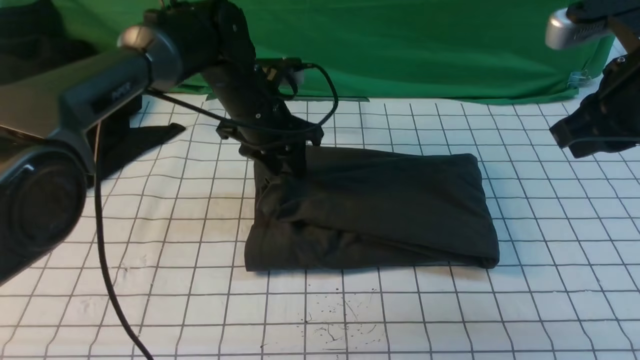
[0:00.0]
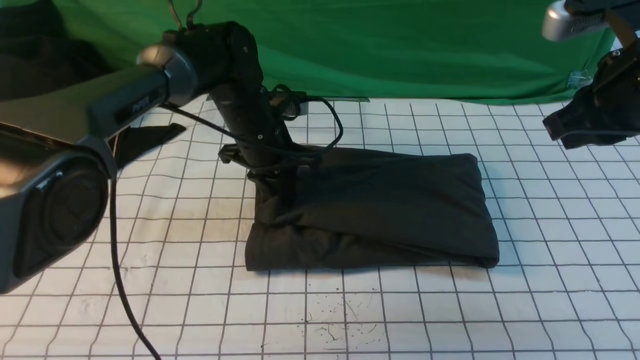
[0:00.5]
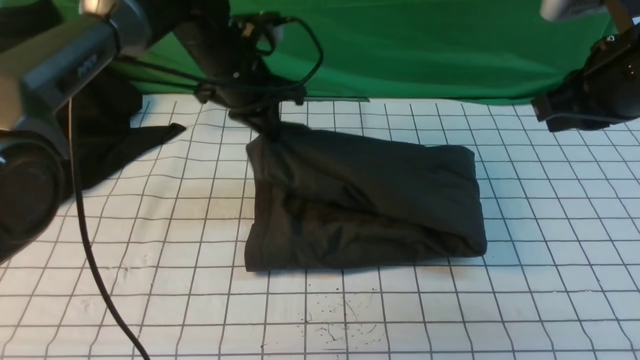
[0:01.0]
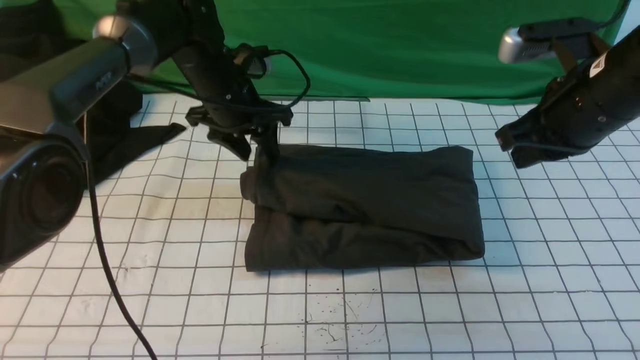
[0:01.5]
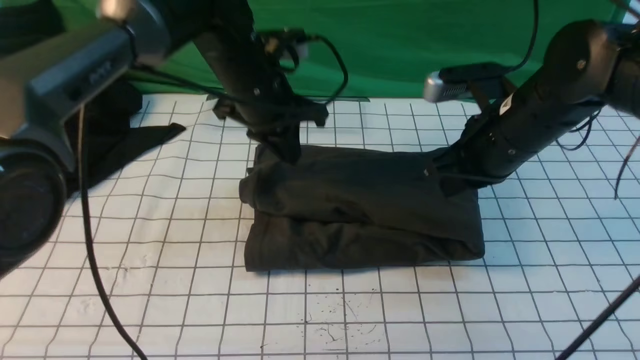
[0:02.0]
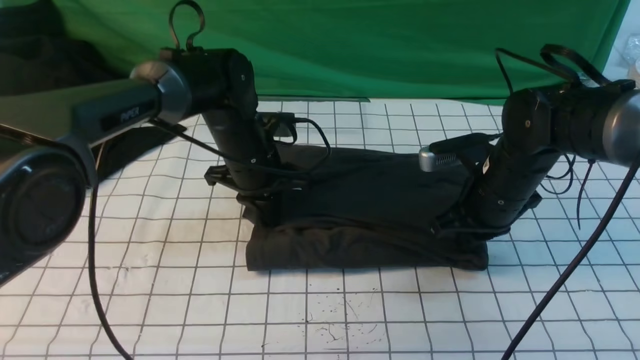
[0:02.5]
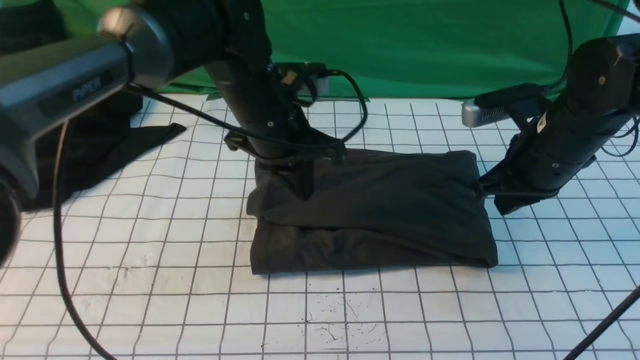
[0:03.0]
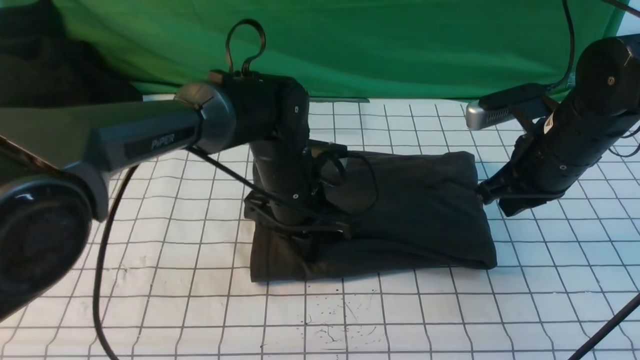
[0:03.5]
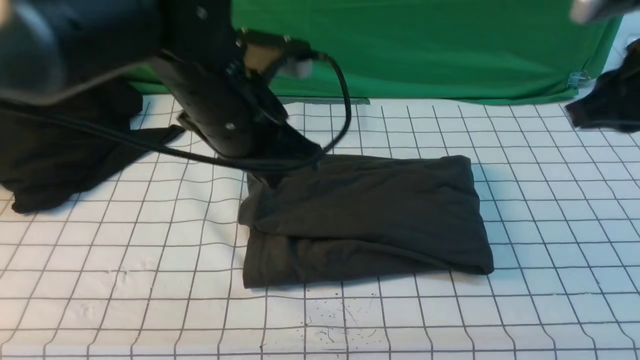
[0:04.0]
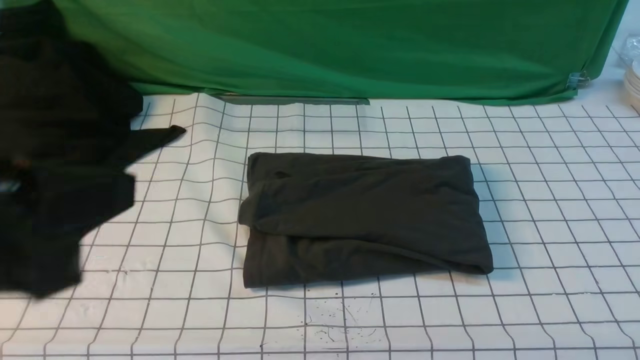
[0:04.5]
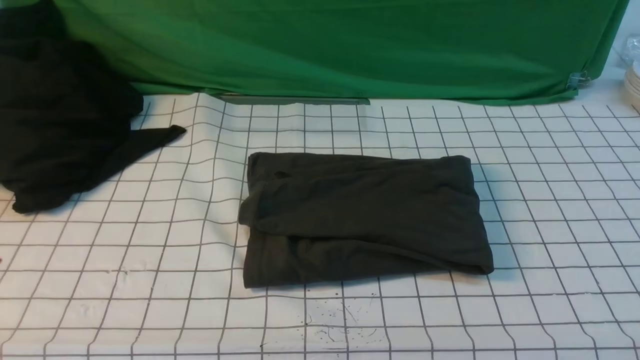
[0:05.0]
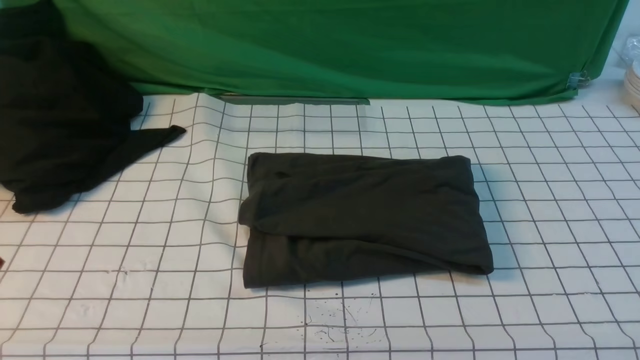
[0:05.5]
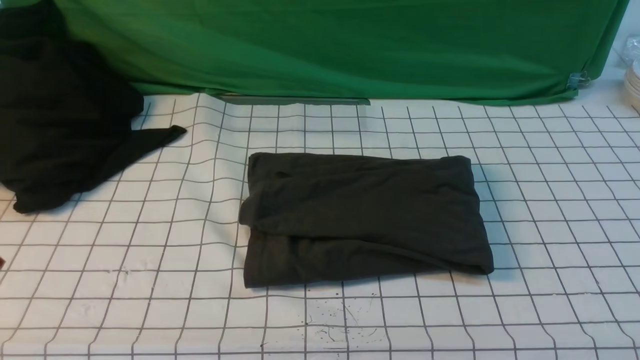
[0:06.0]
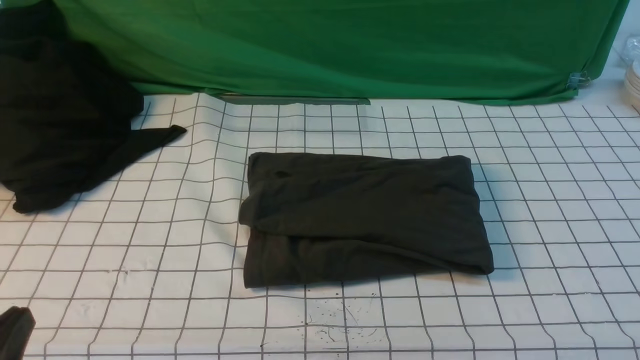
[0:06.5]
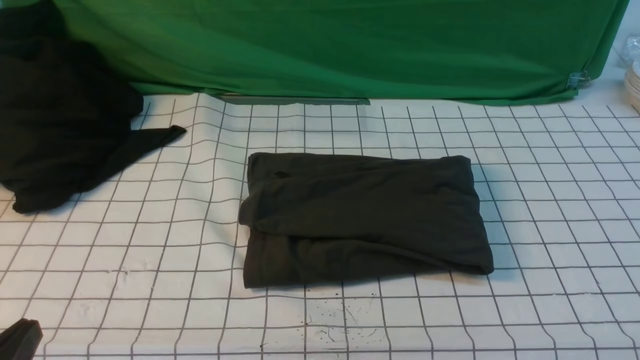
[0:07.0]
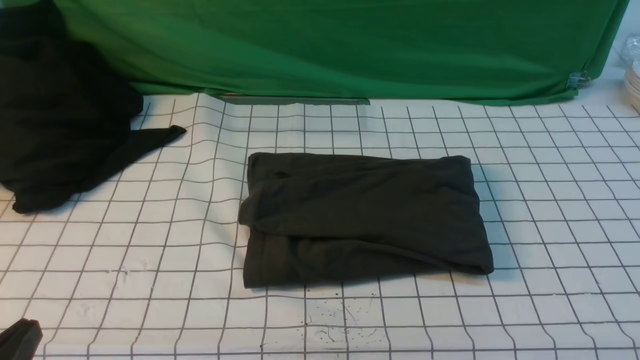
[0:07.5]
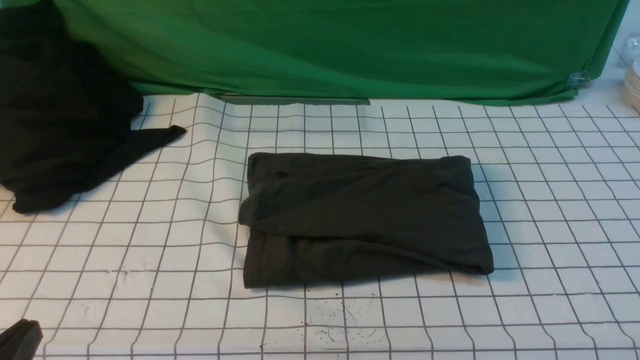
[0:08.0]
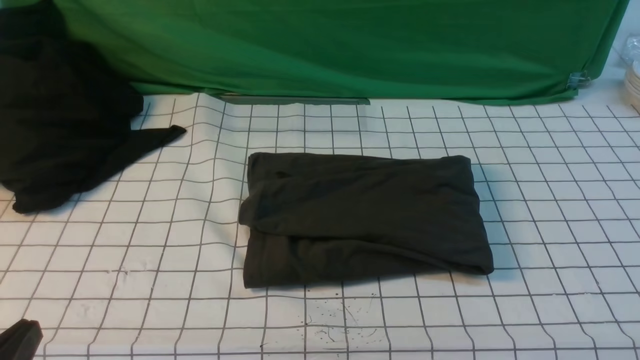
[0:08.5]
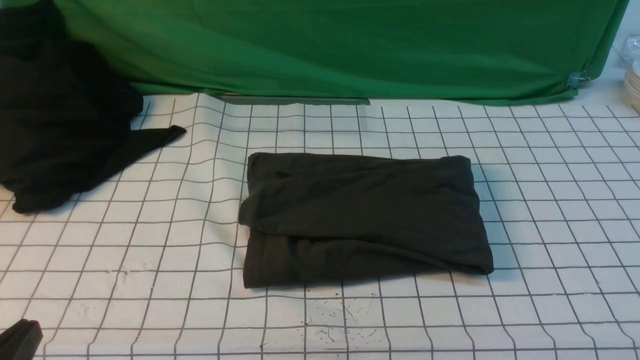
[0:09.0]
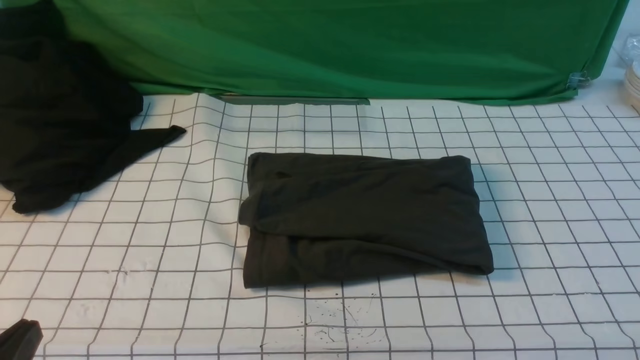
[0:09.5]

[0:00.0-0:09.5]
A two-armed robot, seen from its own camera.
0:00.0 to 0:02.0: The left gripper closes its fingers. The right gripper goes about 15 cm downward, to the left and forward.
0:02.0 to 0:04.0: The left gripper swings up and down, roughly 15 cm each way, with 3 reversals. Meanwhile the right gripper goes about 20 cm upward, backward and to the right.
0:04.0 to 0:05.5: The right gripper travels backward by about 25 cm; the left gripper is displaced backward and to the left by some 30 cm.
0:05.5 to 0:07.5: The left gripper heads downward, covering about 10 cm.
